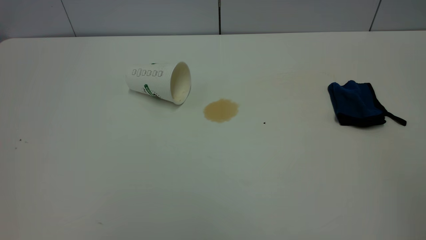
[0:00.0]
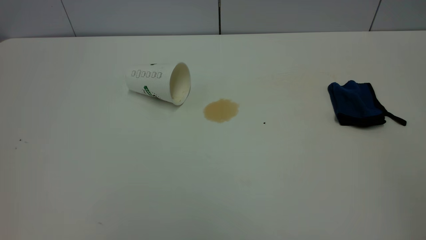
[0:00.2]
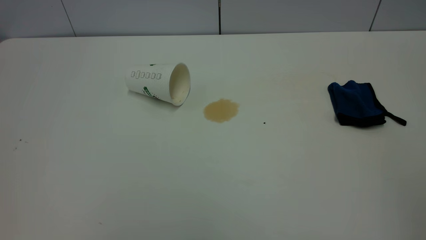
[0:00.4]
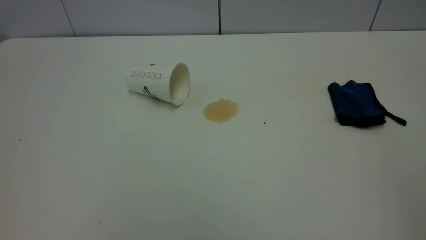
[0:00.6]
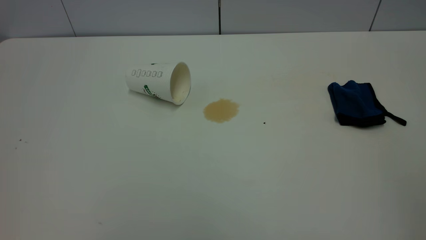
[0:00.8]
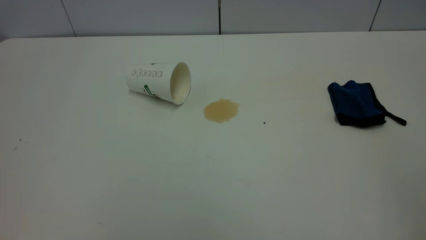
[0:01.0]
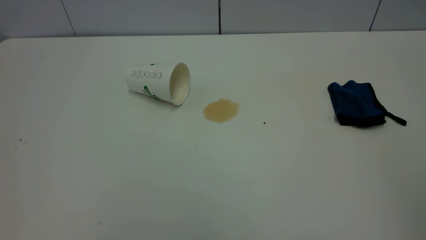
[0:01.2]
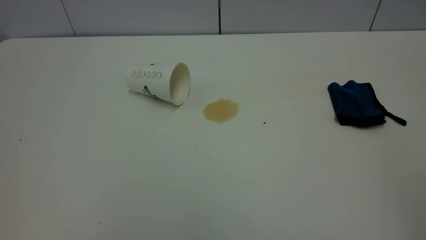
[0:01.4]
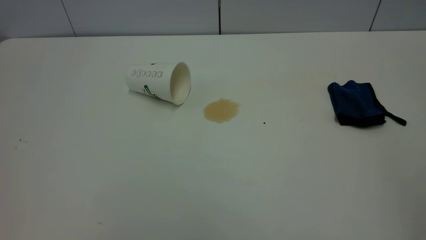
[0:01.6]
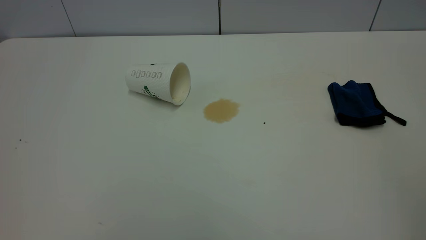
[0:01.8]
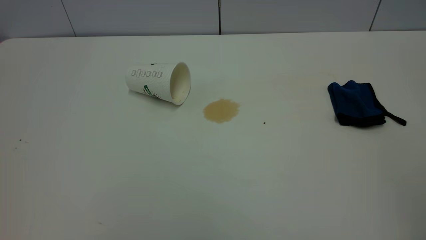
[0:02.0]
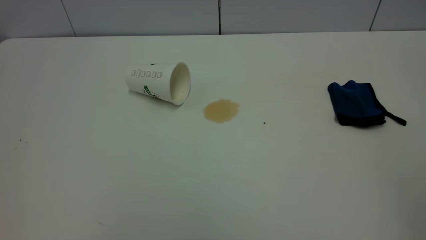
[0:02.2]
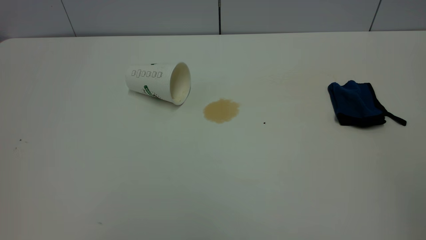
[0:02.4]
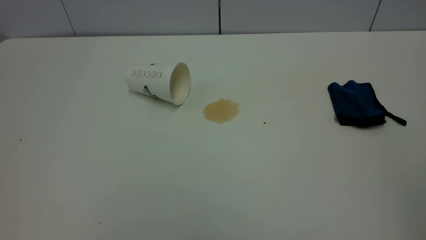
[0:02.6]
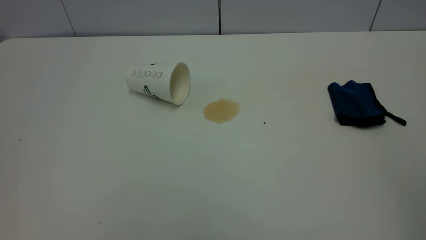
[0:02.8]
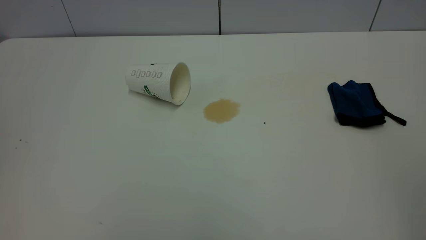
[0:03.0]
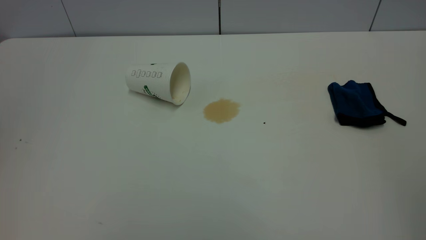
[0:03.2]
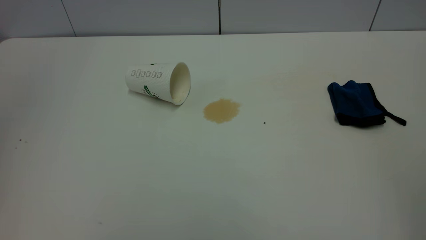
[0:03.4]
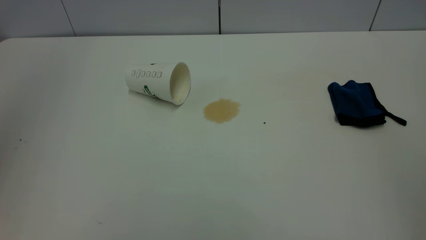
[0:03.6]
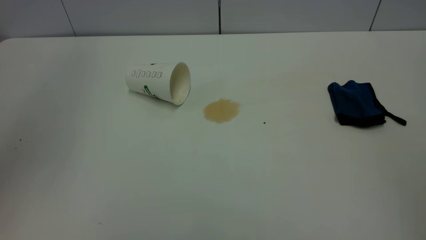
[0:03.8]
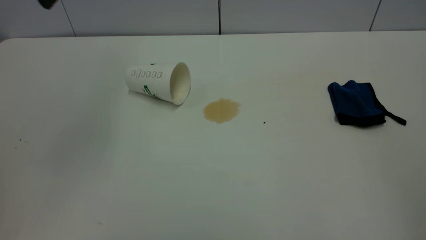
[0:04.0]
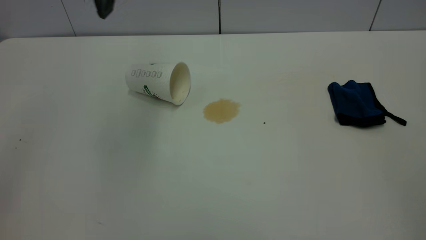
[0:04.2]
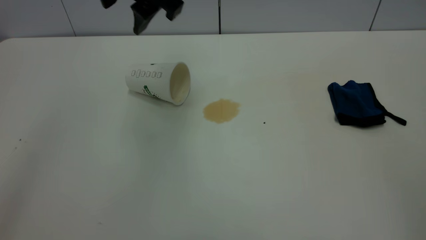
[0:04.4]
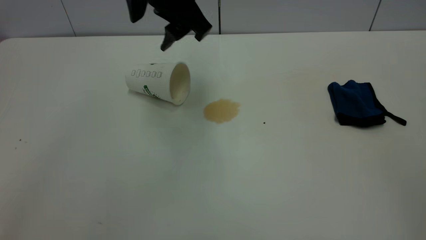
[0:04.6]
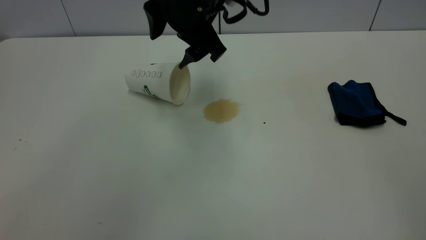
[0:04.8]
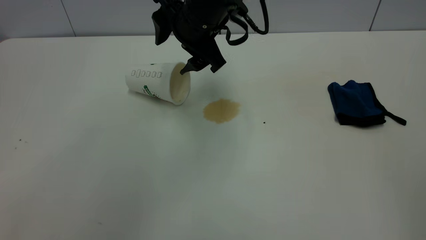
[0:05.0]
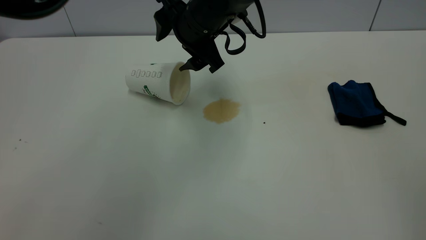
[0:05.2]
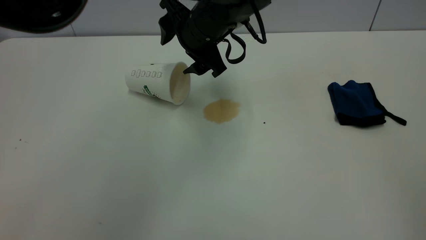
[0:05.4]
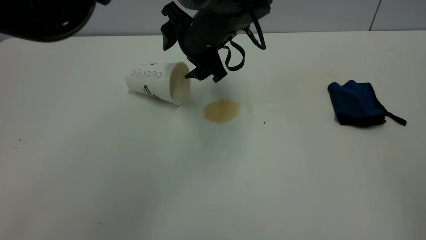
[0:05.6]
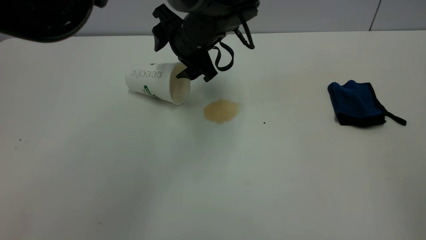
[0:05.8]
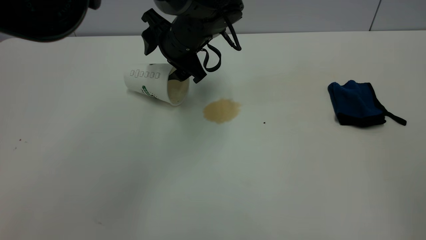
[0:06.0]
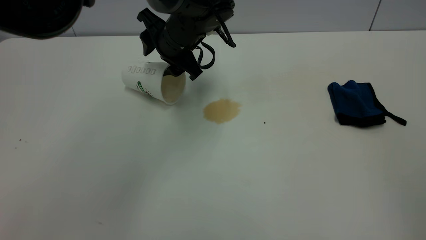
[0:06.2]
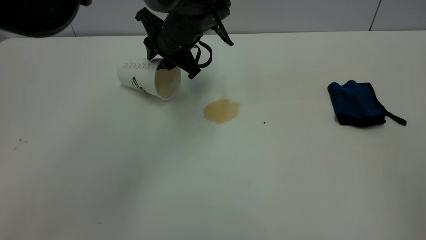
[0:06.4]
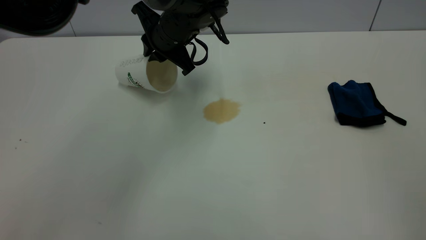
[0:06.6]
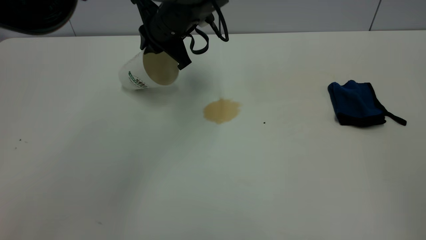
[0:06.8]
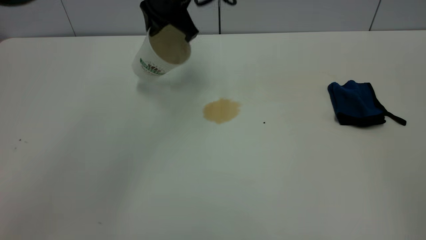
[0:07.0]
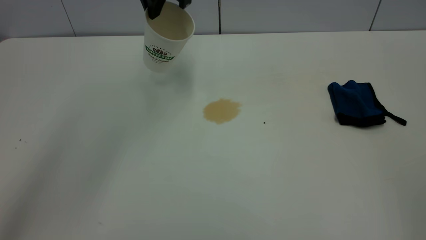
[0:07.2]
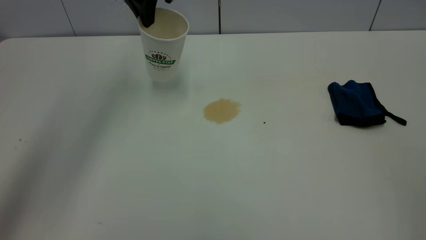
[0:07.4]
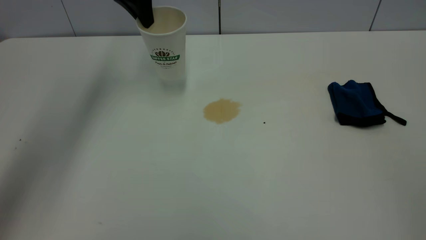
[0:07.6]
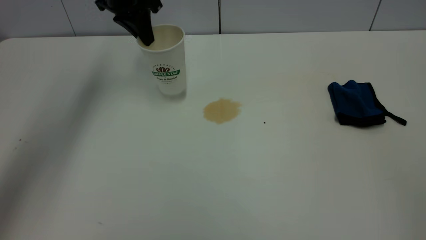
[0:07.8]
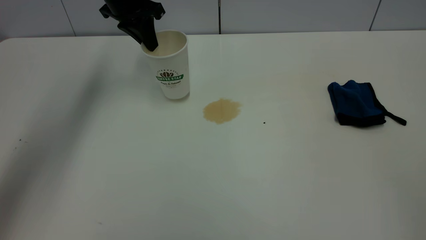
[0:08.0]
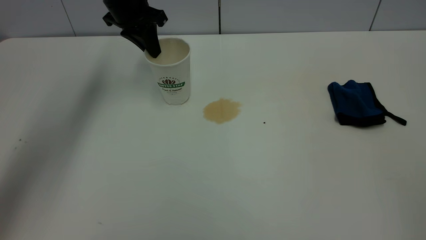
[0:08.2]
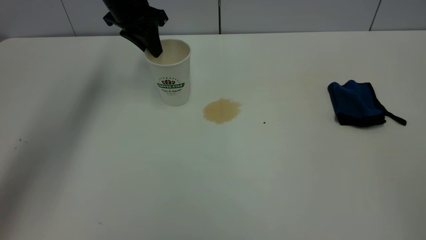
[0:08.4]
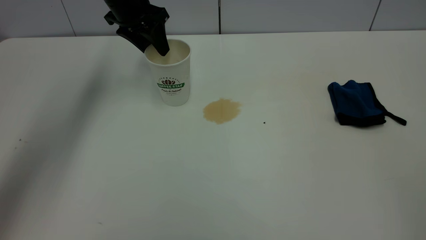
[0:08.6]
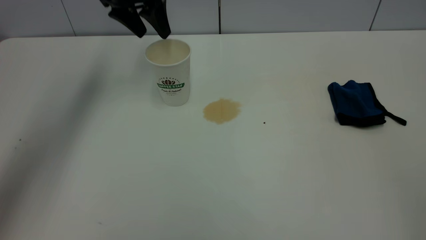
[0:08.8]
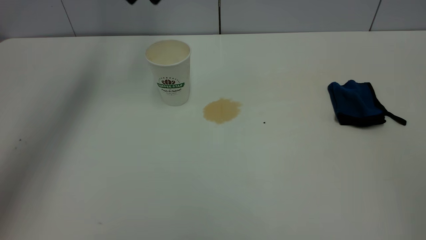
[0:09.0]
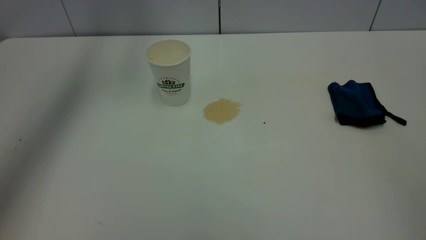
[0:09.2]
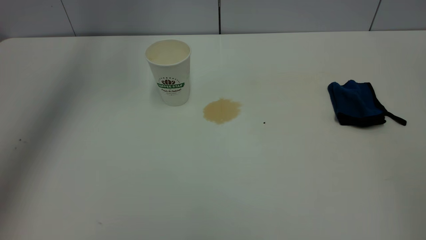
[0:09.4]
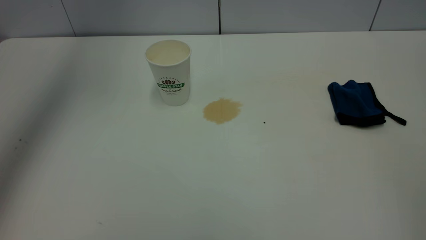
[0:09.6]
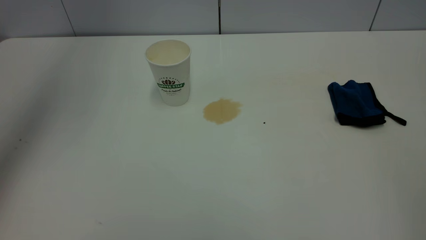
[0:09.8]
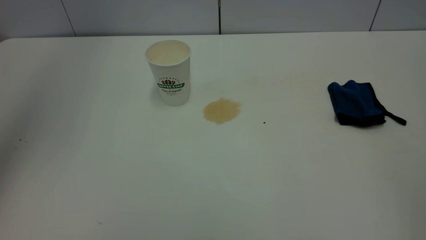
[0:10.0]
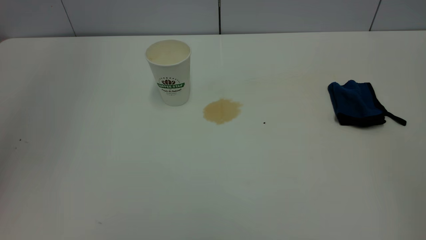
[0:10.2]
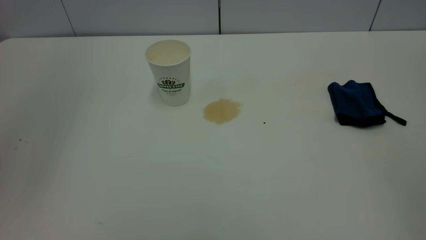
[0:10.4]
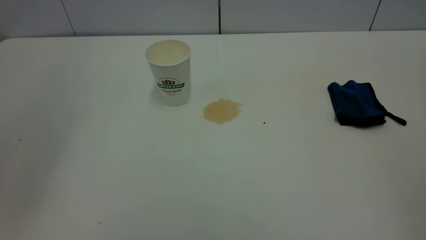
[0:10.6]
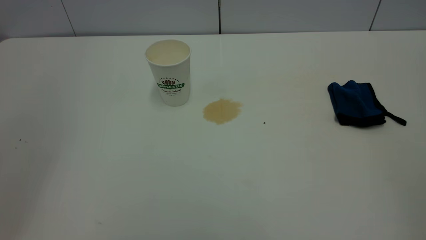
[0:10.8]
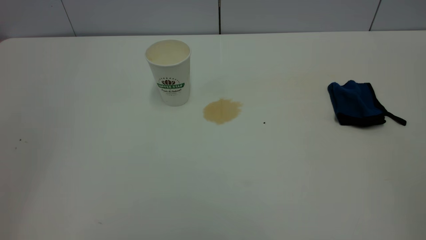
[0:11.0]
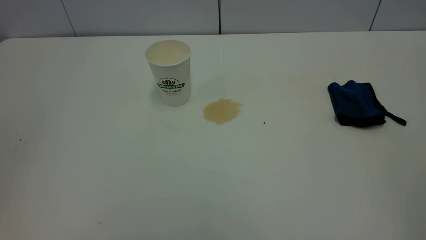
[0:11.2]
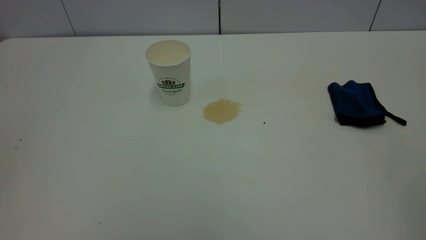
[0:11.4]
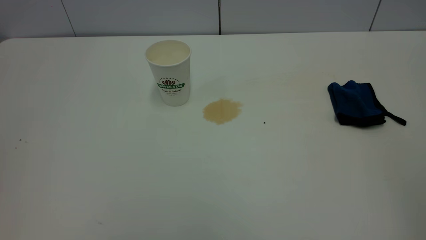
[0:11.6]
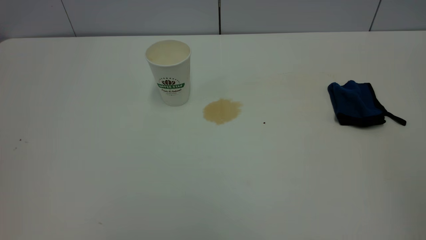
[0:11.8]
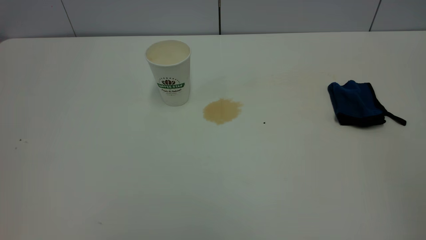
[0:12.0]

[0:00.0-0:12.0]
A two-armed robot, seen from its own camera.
Task of the whole recording: the left gripper pick up the fallen cup and place it upright, the right gripper grasp the blue rag and wipe the tea stain on the table, the right gripper put the blue rag back in its original position.
Step, 0:00.0 to 0:08.6: Stand the paper cup upright.
0:00.0 to 0:01.6: Both grippers stay about where they are.
0:03.0 to 0:04.4: The left gripper travels forward and to the right by approximately 40 cm.
0:04.4 to 0:06.0: The left gripper travels downward and forward by about 20 cm.
0:06.0 to 0:07.6: The left gripper heads to the left, upward and forward, covering roughly 20 cm, and closes its fingers.
0:07.6 to 0:09.0: The left gripper heads upward, covering about 5 cm, and opens.
0:09.0 to 0:10.4: The left gripper travels backward by some 25 cm, and closes its fingers.

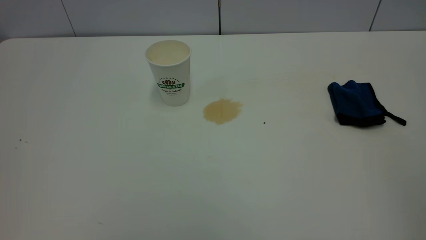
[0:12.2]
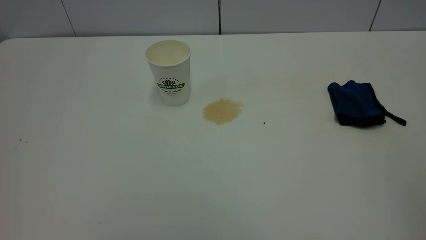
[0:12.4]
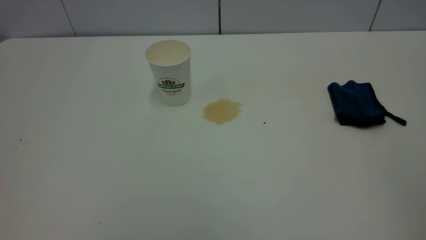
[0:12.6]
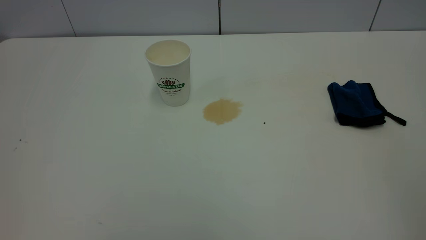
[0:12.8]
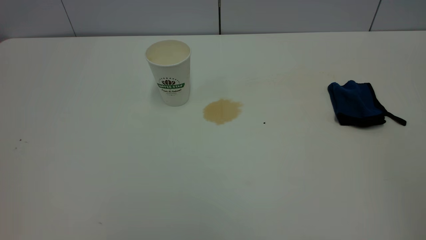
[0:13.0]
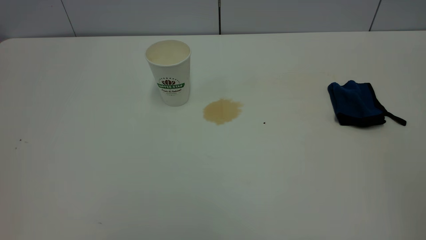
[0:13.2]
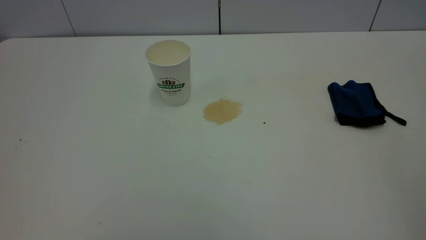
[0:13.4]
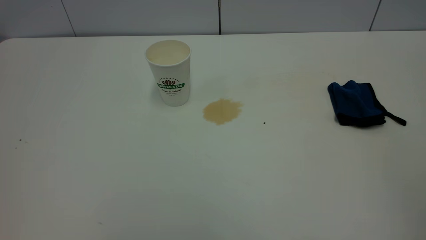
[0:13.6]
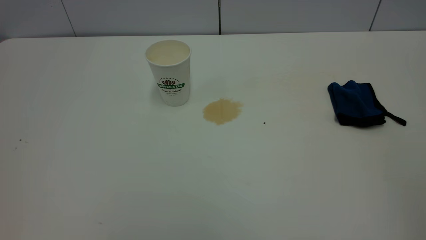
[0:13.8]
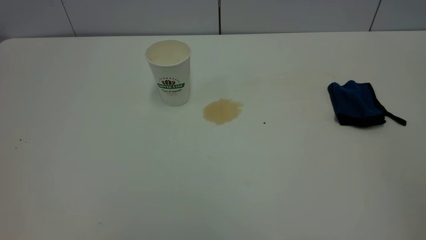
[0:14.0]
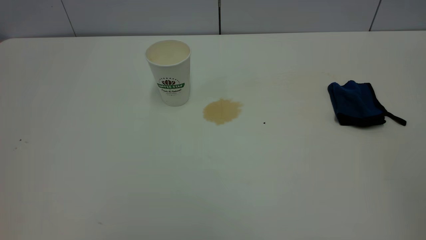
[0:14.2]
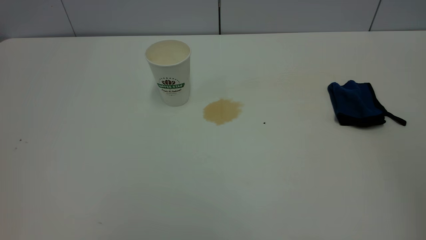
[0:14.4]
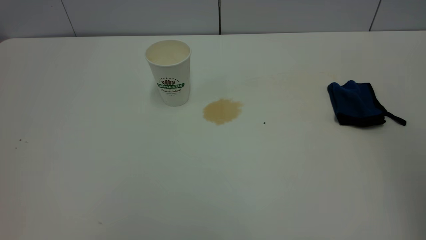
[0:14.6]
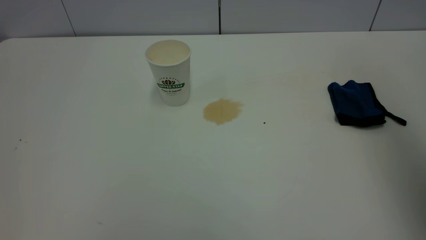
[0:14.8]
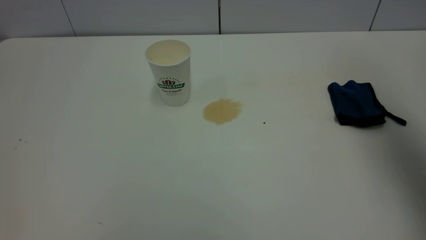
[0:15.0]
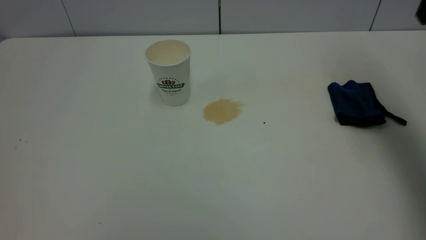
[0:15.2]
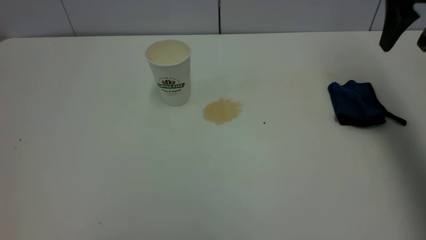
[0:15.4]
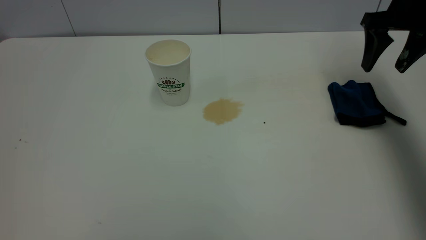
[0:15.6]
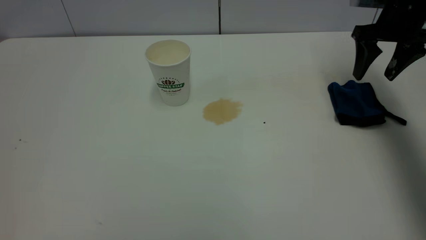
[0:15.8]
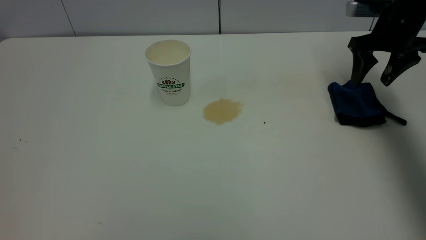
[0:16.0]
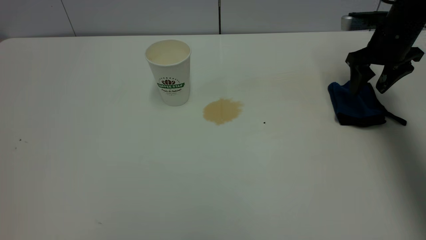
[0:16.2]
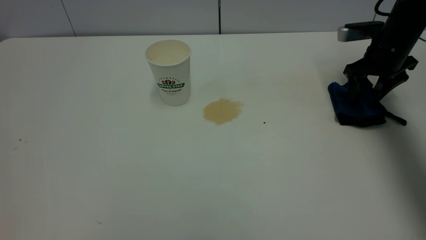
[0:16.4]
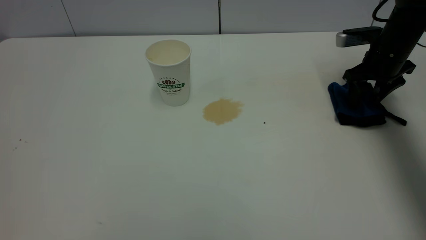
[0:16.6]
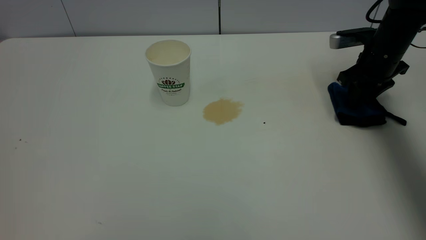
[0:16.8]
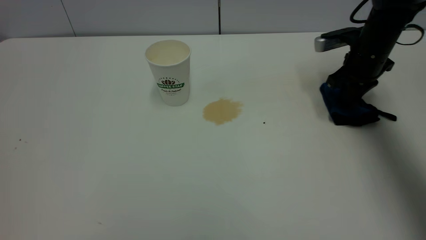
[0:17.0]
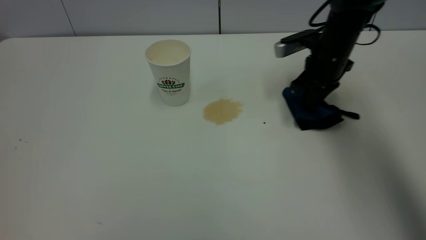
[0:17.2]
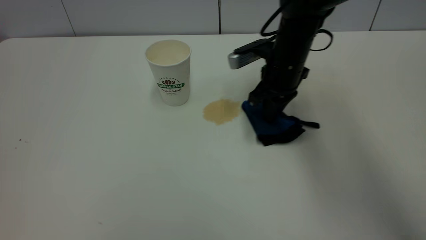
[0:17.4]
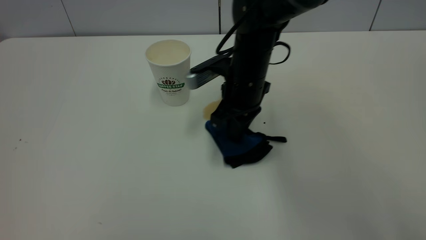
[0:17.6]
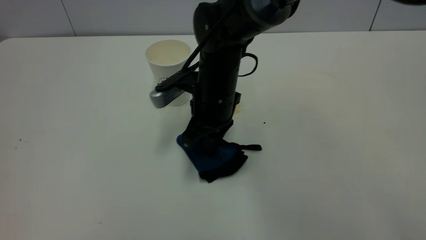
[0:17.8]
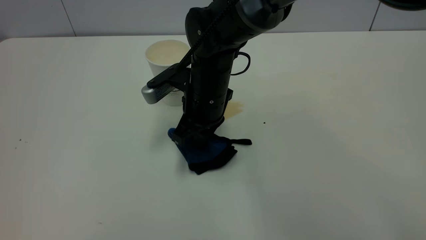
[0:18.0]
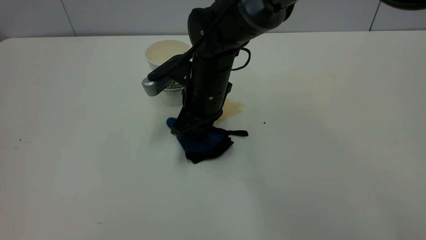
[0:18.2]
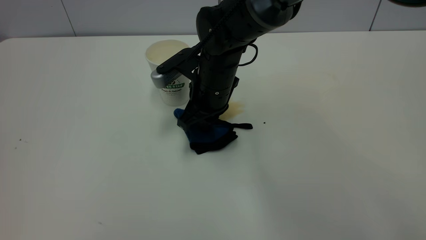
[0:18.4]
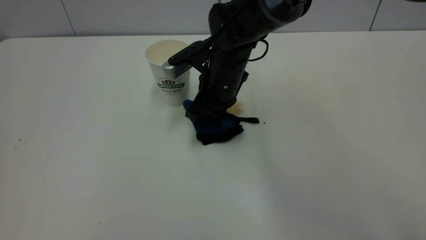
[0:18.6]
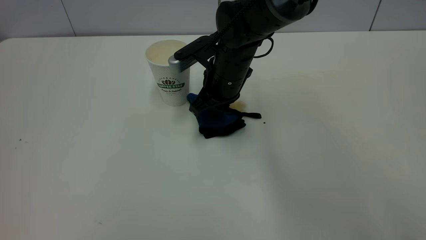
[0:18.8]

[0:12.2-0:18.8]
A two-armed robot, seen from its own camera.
Task of the whole recording: the left gripper pick up the fallen cup and place it upright, the right gripper grasp the blue rag and wipe the tea stain on the table, the right gripper put the blue rag back in its original position.
0:12.2 to 0:13.8: The two grippers keep their place.
0:13.8 to 0:15.4: The right gripper moves forward, some 40 cm, and opens up.
0:15.4 to 0:17.2: The right gripper moves downward and to the left, about 20 cm, and closes.
0:17.2 to 0:18.8: The right gripper moves to the left, approximately 15 cm.
